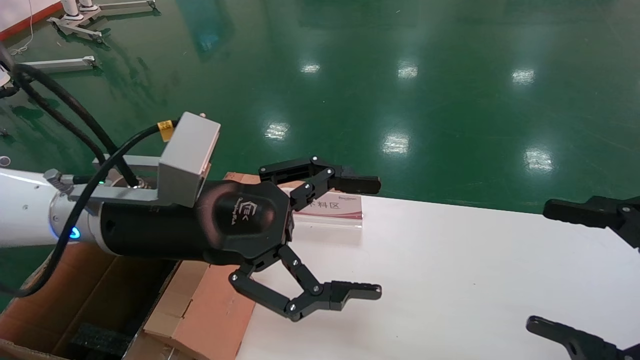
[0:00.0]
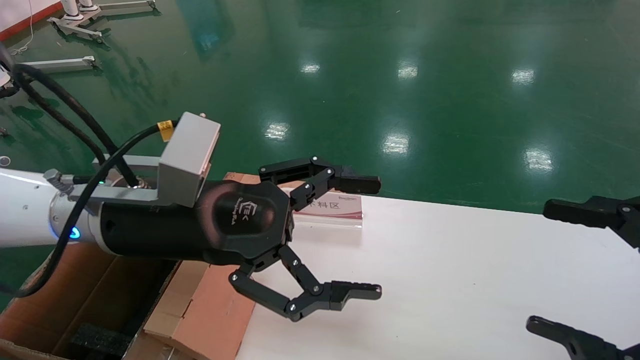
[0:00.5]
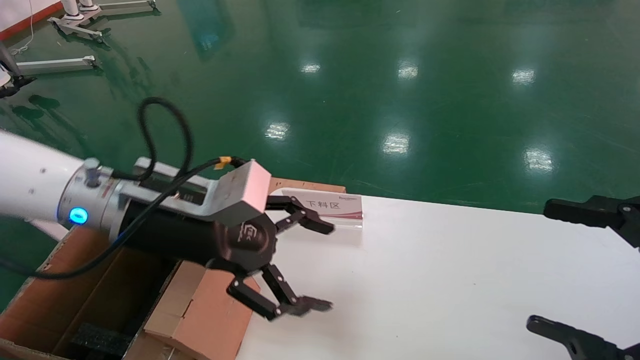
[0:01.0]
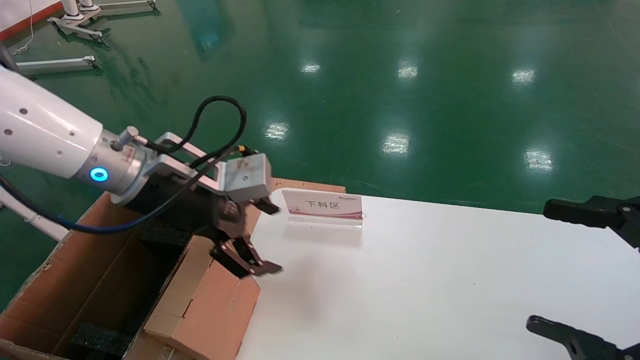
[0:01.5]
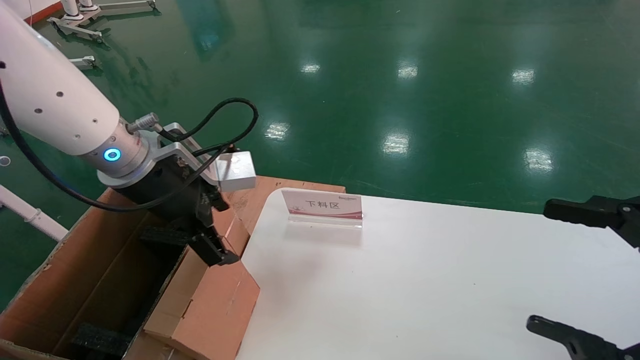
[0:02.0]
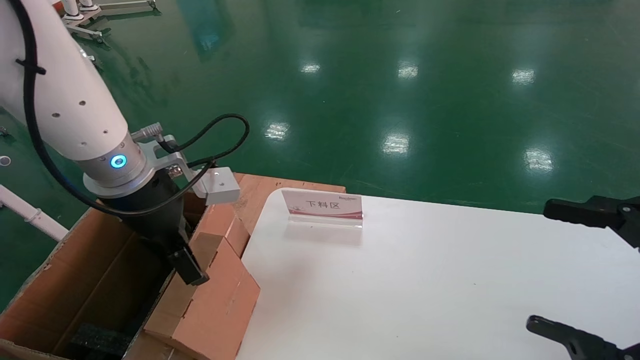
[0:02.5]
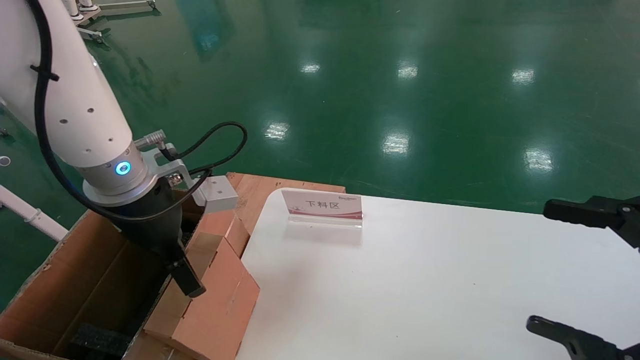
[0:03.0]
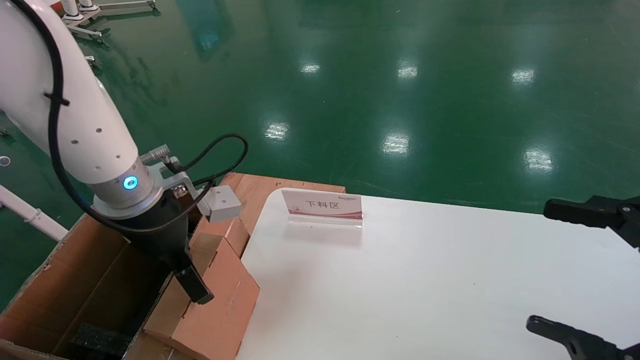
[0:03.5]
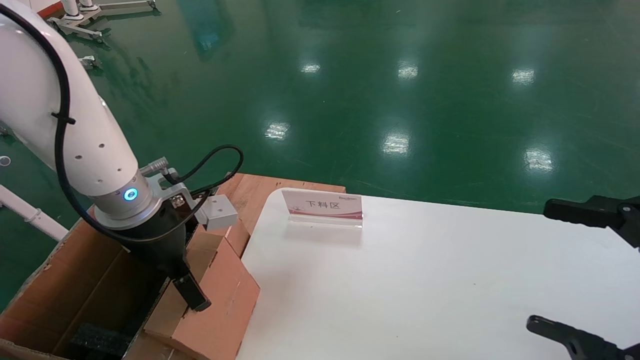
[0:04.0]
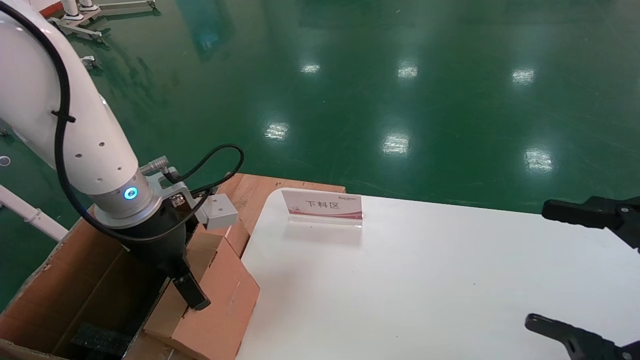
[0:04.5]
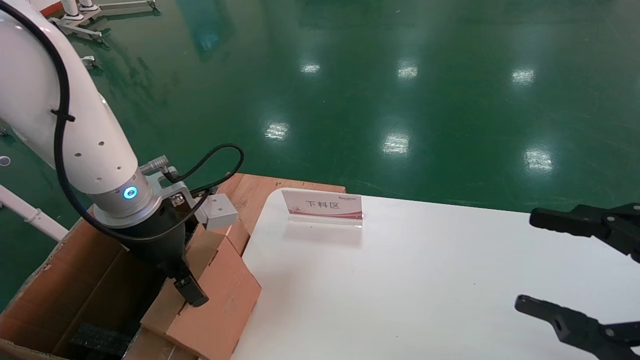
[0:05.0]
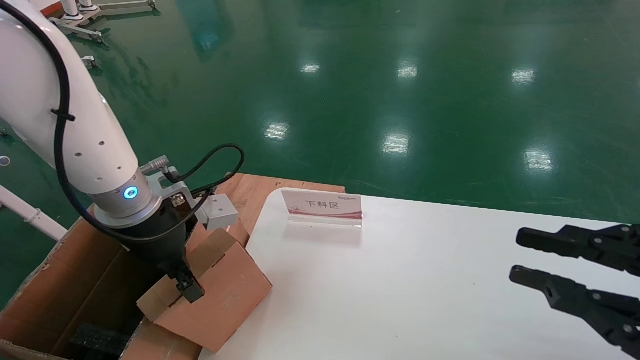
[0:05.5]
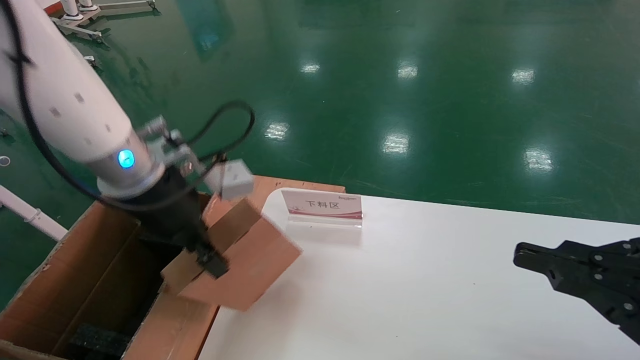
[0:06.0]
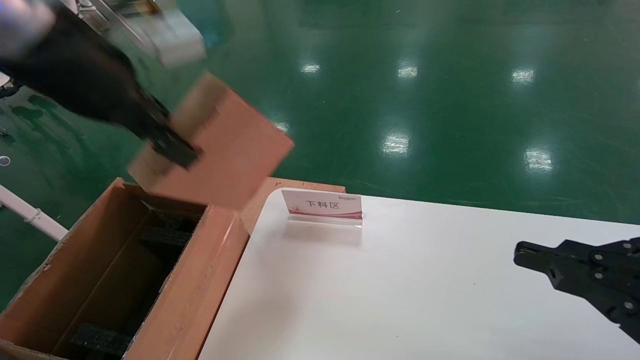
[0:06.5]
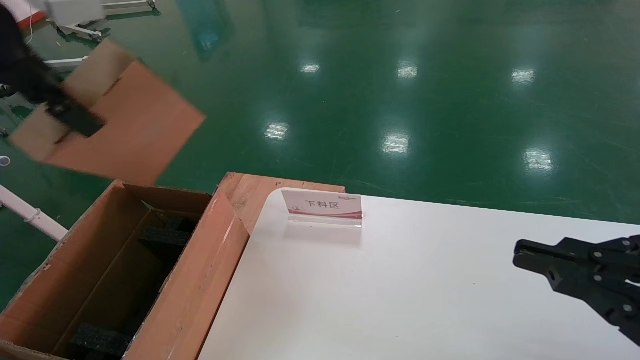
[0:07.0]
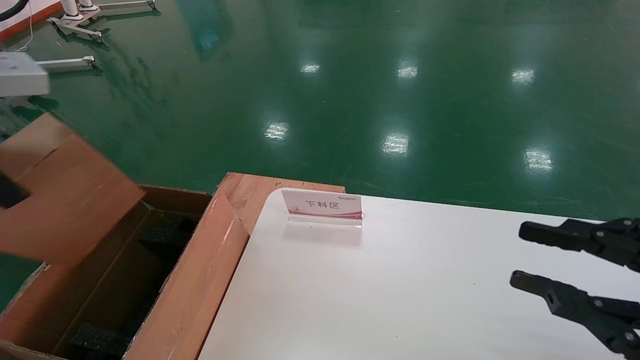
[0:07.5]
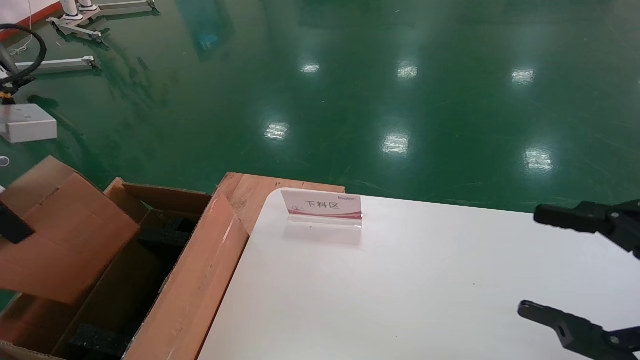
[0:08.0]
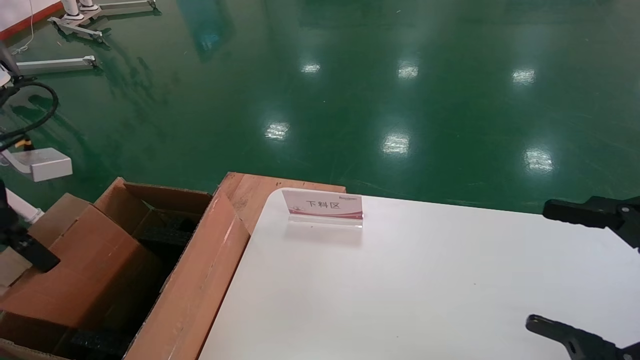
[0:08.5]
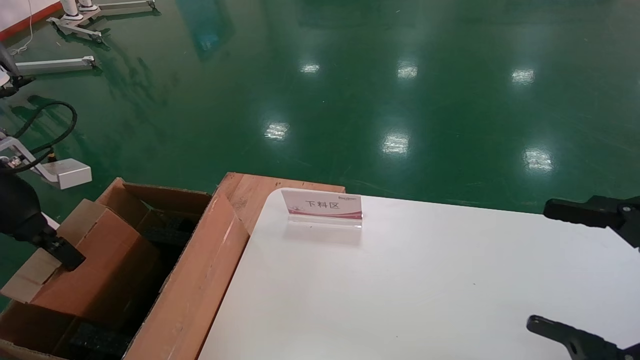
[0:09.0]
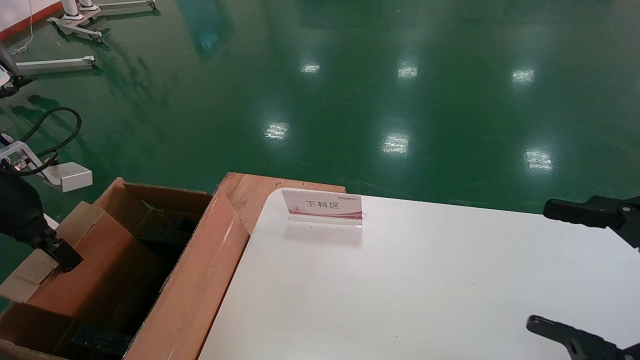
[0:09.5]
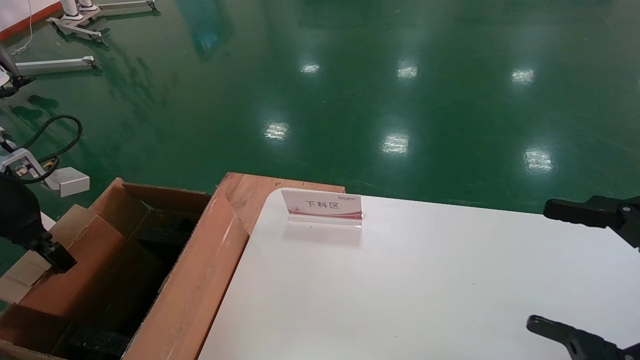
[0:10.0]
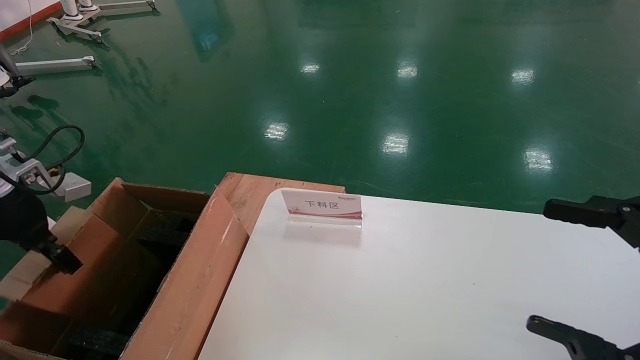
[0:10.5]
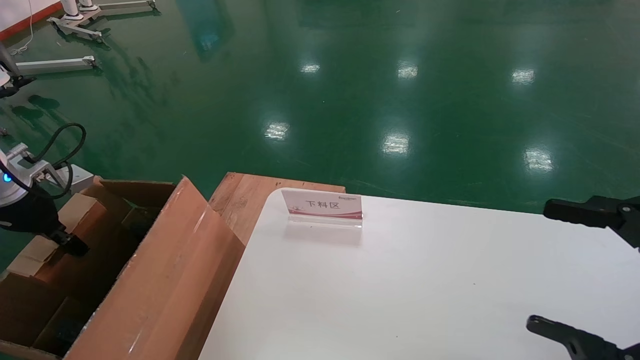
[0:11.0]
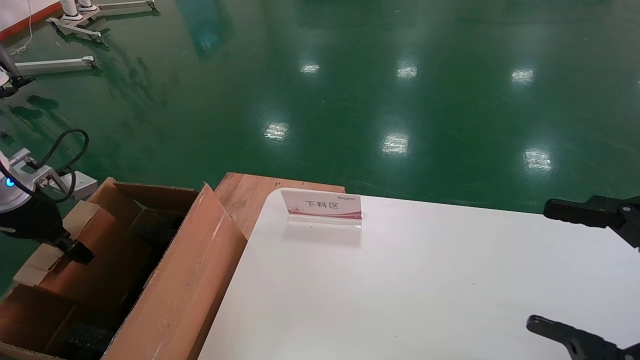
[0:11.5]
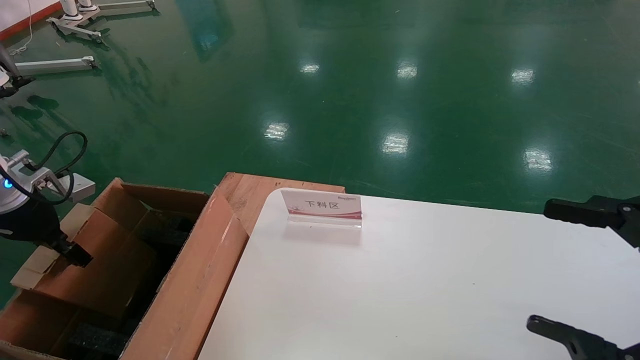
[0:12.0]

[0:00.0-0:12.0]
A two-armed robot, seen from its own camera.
Task of the whole recording: pick up the small cardboard box and load it into the large cardboard box.
Step, 0:01.0 to 0:05.5: Pick up the mouse and power cord box.
0:00.0 to 0:02.0: The left gripper moves forward, roughly 5 cm.
0:02.0 to 0:04.0: The left gripper shifts by about 5 cm.
0:04.0 to 0:06.0: The right gripper closes up. Meanwhile the left gripper shifts approximately 5 cm upward, and closes its fingers.
0:06.0 to 0:08.0: The left gripper travels to the left, backward and upward by roughly 20 cm. Meanwhile the right gripper opens.
0:08.0 to 0:10.0: The left gripper shifts some 15 cm downward, to the left and forward, while the right gripper opens.
0:10.0 to 0:12.0: The left gripper shifts by approximately 5 cm.

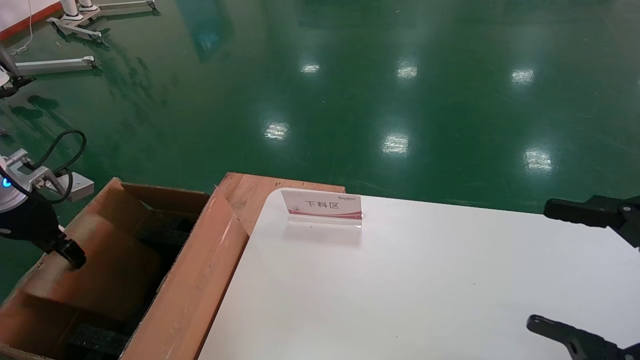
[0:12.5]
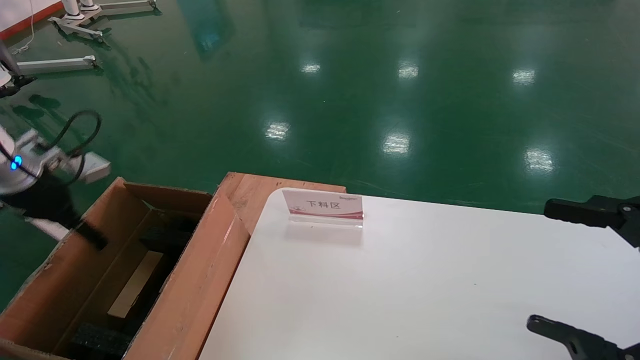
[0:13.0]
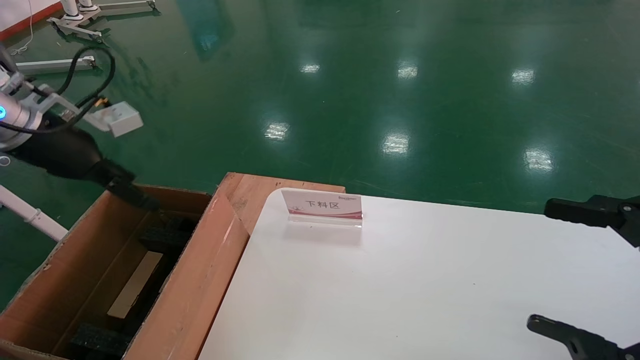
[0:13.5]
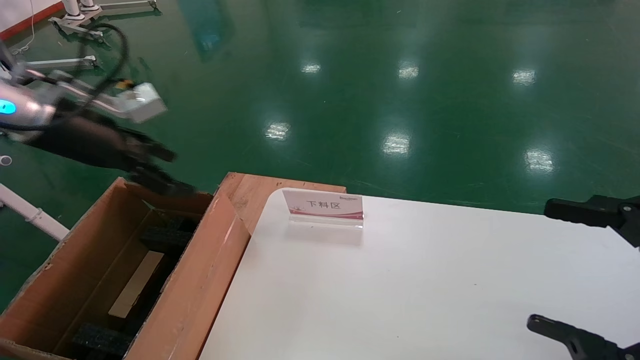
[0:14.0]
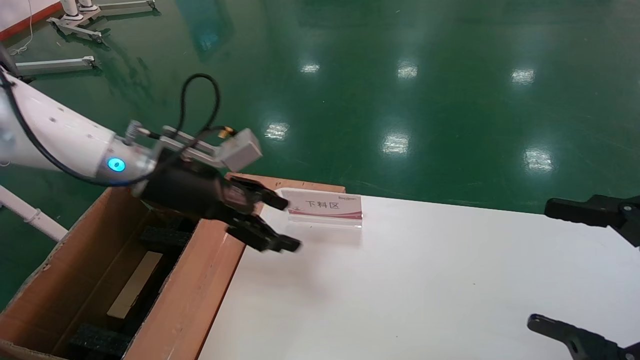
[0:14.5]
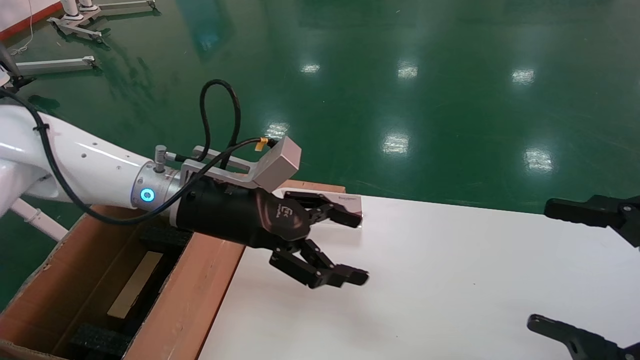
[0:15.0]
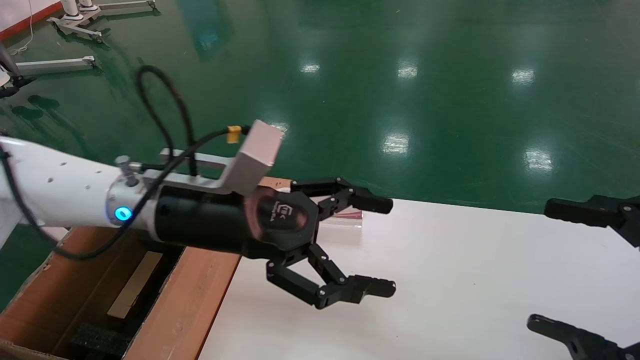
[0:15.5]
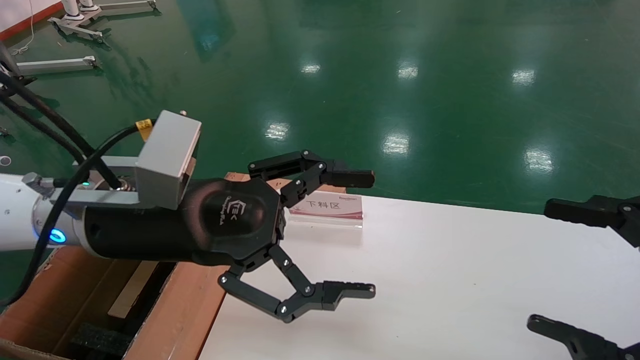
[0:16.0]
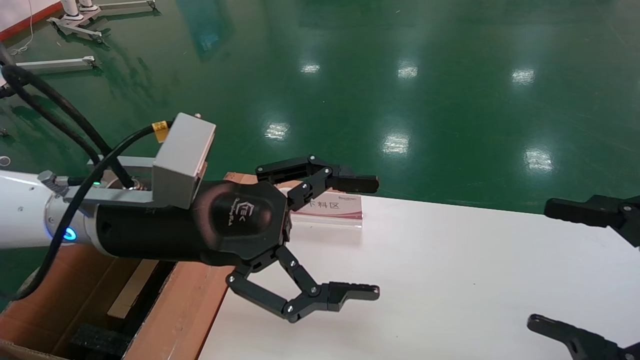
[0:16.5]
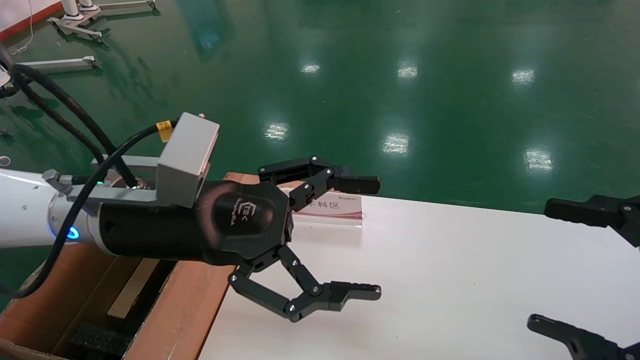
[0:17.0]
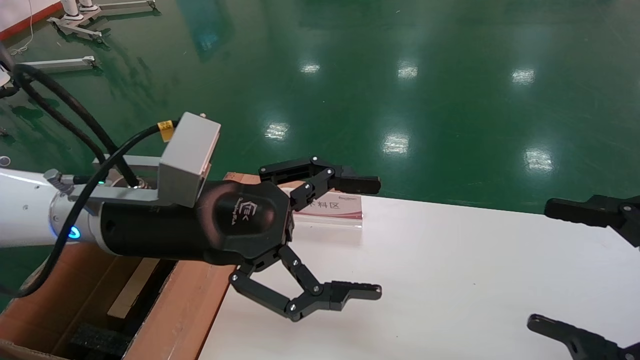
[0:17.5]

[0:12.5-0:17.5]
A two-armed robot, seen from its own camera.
Task of the whole recording: pick up the small cardboard box and load it into the large cardboard box.
0:12.5 to 0:15.0: The left gripper shifts some 30 cm to the right, and opens its fingers.
0:15.0 to 0:17.5: The left gripper moves backward, some 10 cm.
